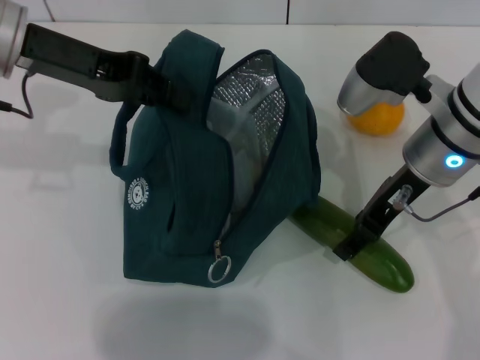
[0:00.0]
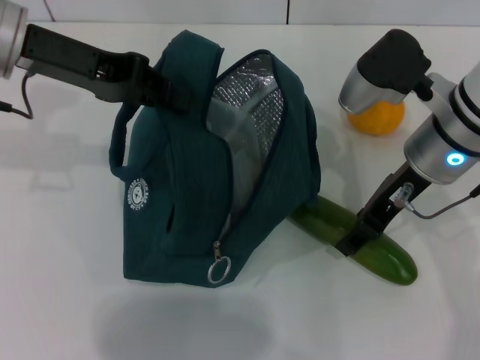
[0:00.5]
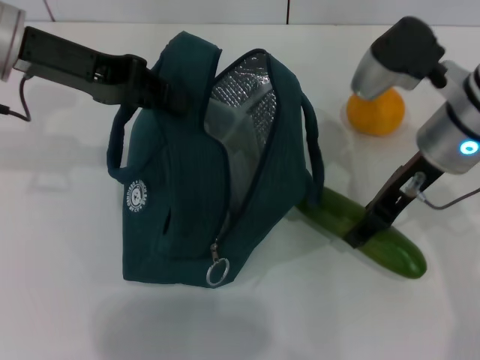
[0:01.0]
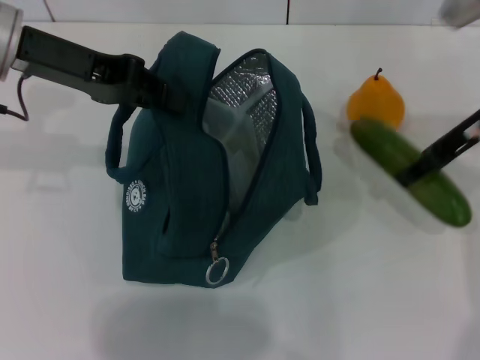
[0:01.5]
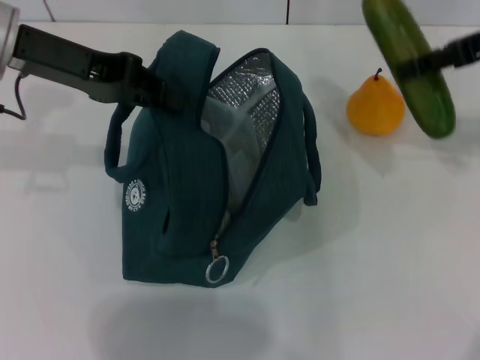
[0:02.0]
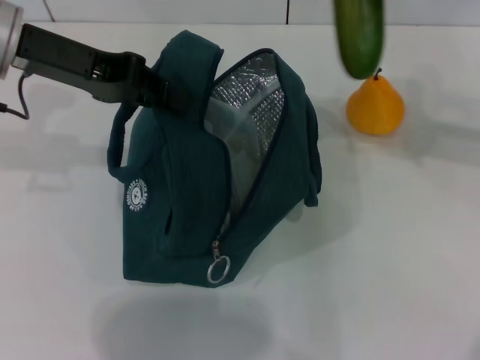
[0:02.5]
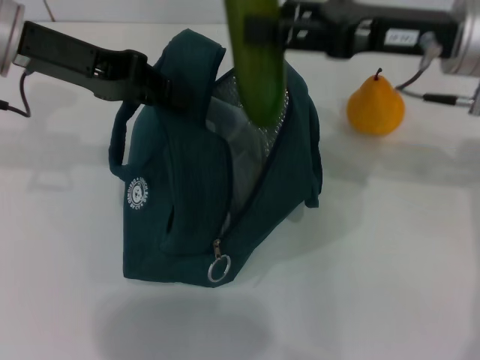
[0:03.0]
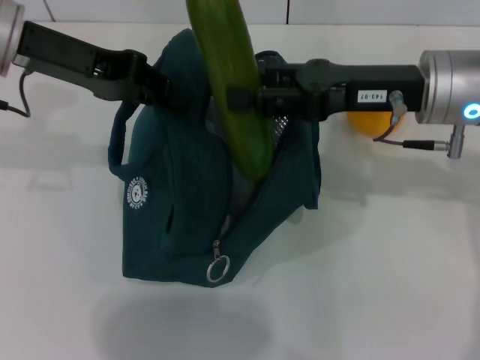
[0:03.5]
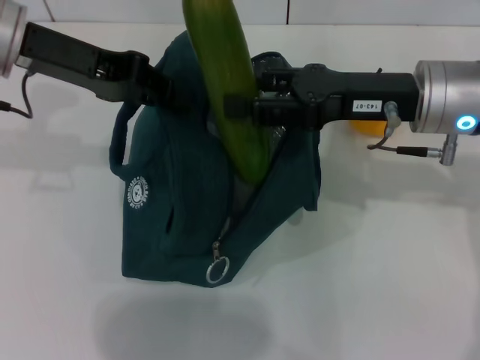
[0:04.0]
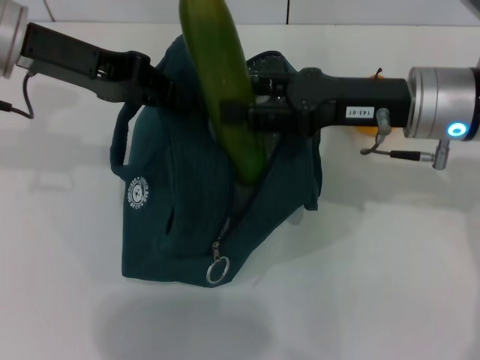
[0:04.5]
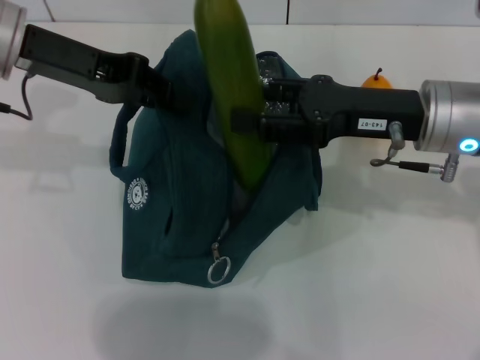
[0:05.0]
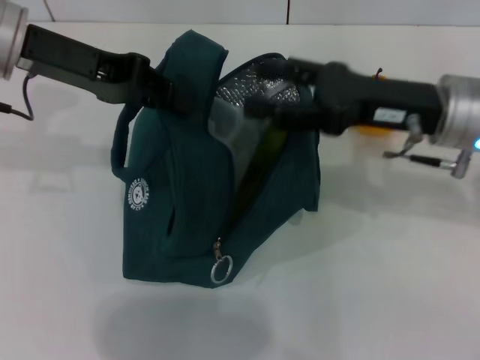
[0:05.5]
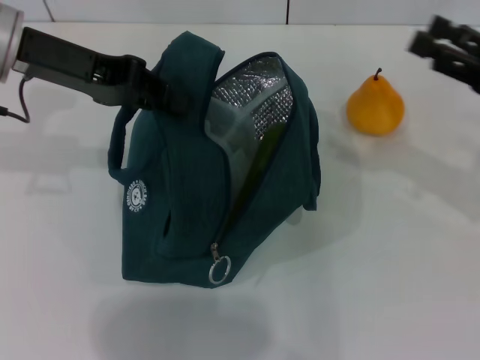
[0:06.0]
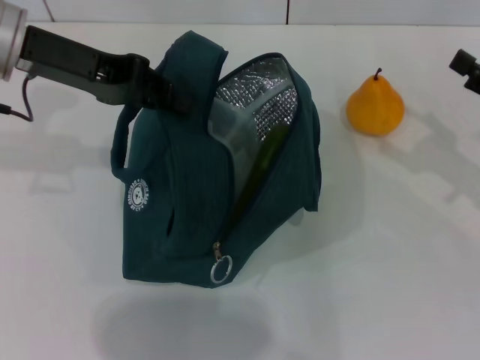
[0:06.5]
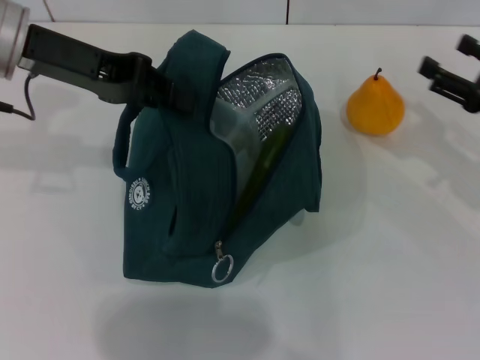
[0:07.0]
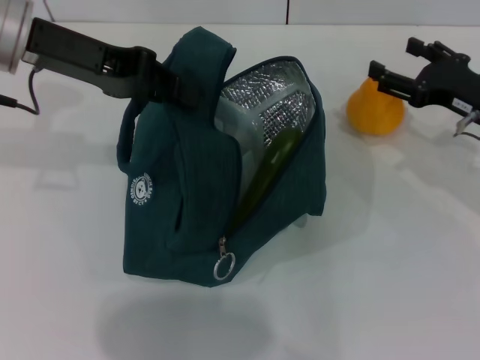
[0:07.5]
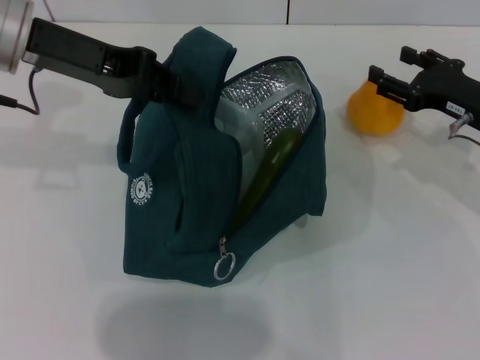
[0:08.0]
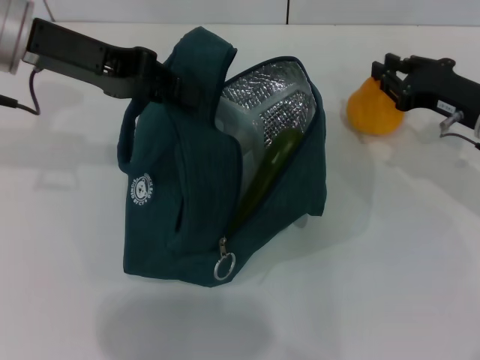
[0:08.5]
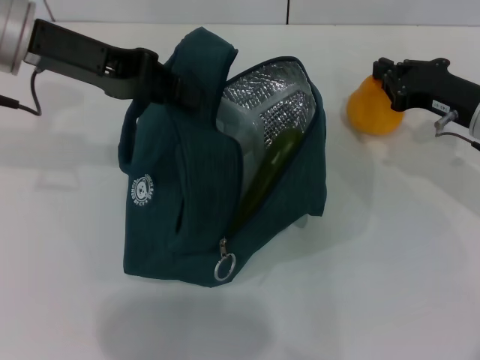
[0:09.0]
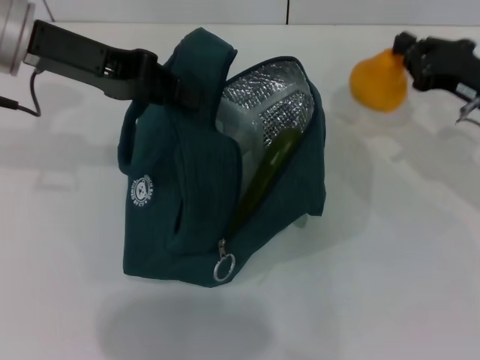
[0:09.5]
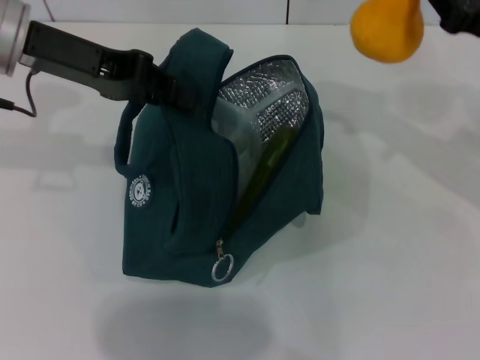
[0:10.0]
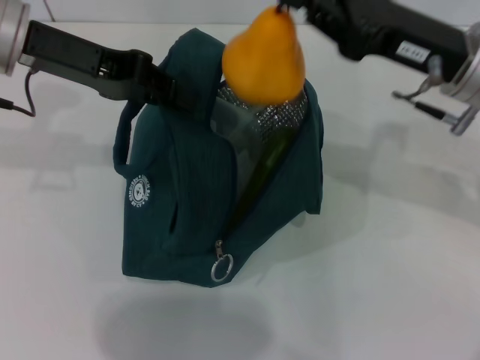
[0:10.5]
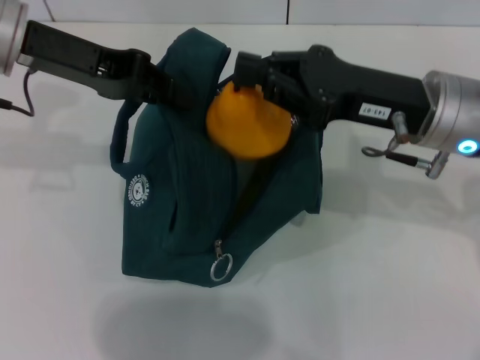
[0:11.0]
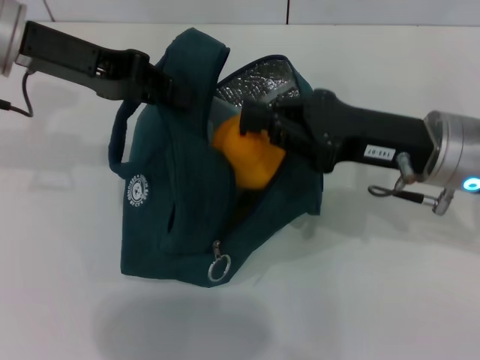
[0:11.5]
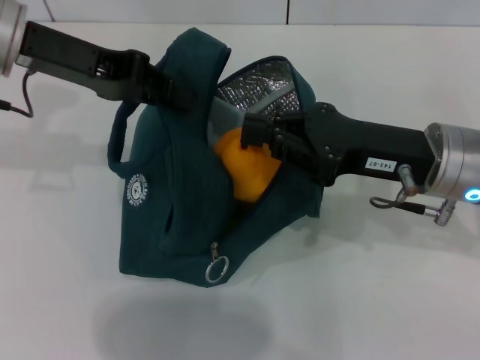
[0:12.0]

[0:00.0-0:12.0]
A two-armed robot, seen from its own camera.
Step, 0:00.5 to 0:05.0: Put the cucumber into the lunch bag with your right hand.
Step, 0:06.0 to 0:09.0: Grab the pear with your right hand.
0:00.0 to 0:02.0: The right gripper goes approximately 15 cm to the right and upward.
0:02.0 to 0:04.0: The right gripper moves to the left and downward, about 15 cm.
0:04.0 to 0:06.0: The right gripper moves to the right, roughly 15 cm.
0:06.0 to 0:08.0: The right gripper goes about 10 cm downward and forward.
0:08.0 to 0:10.0: The right gripper goes roughly 5 cm upward, and closes its fingers.
0:10.0 to 0:12.0: The right gripper heads to the left and backward, covering roughly 10 cm.

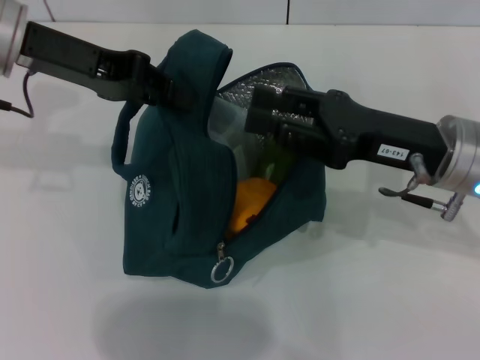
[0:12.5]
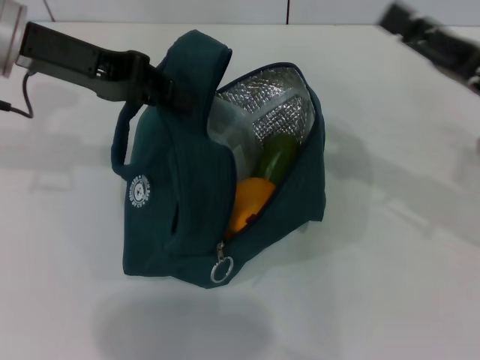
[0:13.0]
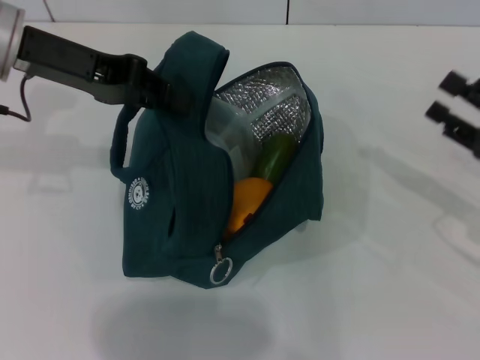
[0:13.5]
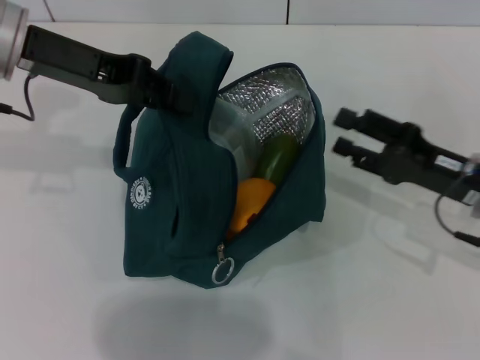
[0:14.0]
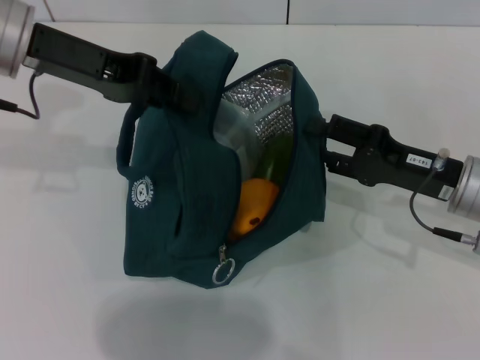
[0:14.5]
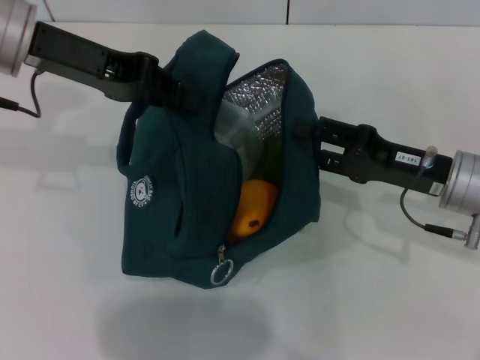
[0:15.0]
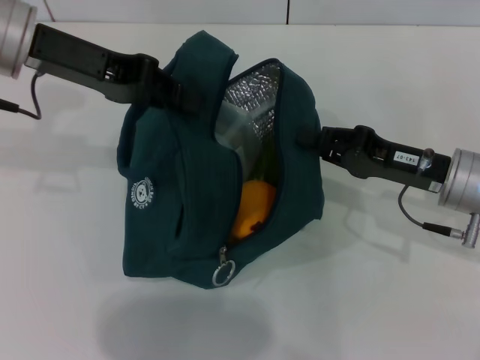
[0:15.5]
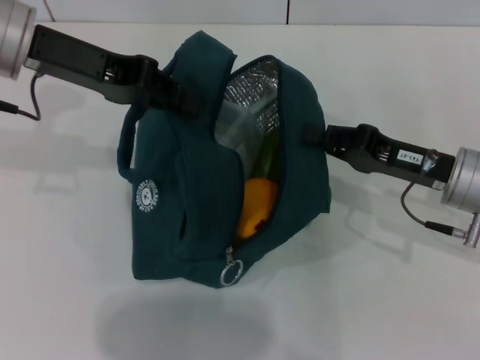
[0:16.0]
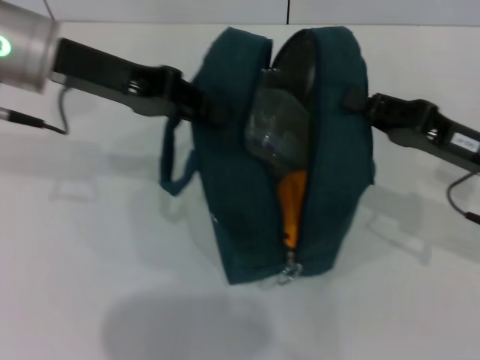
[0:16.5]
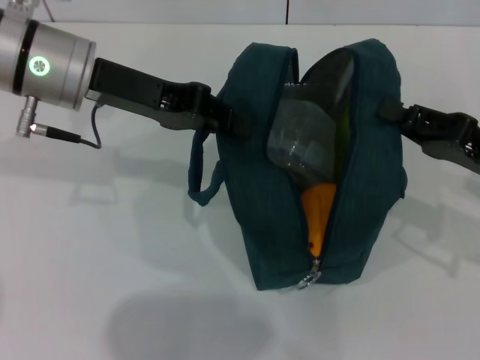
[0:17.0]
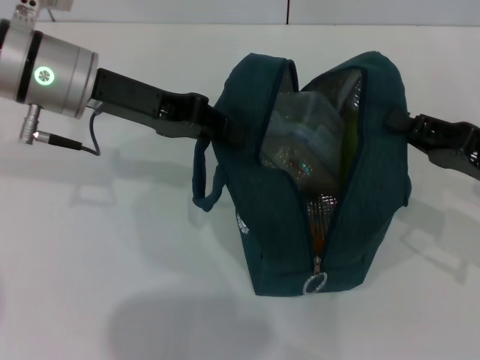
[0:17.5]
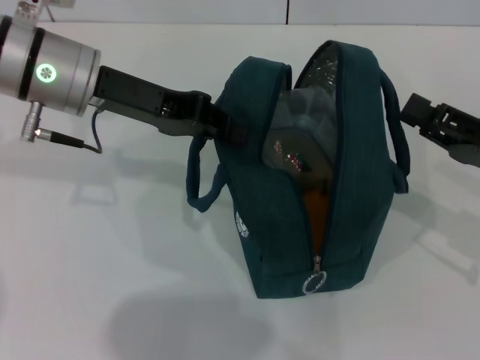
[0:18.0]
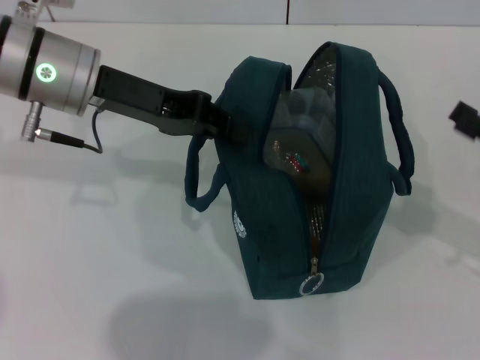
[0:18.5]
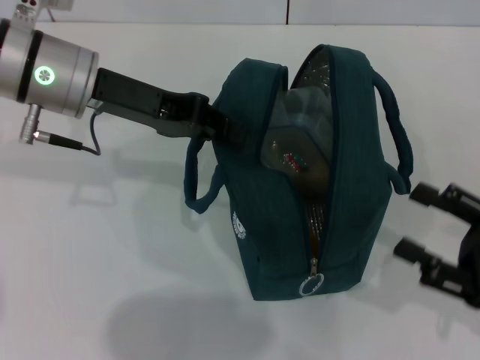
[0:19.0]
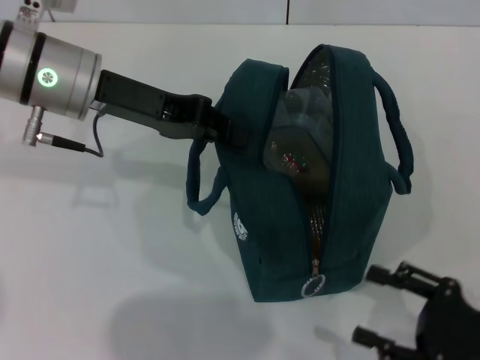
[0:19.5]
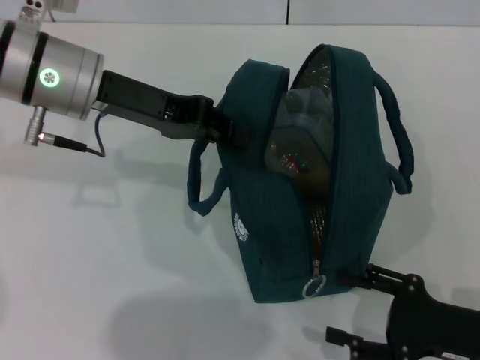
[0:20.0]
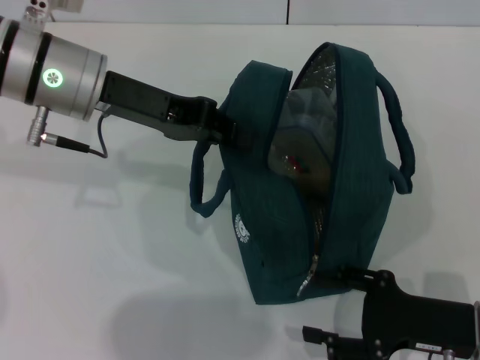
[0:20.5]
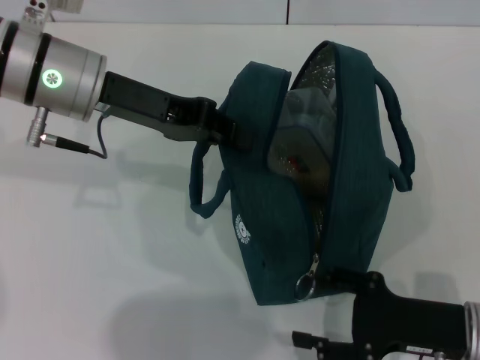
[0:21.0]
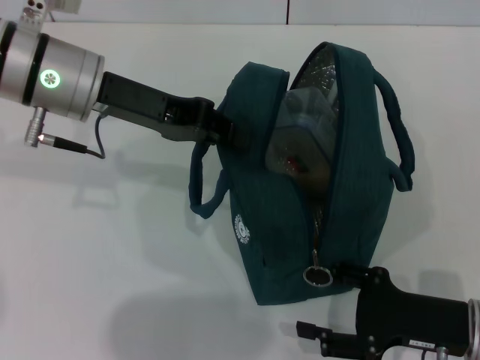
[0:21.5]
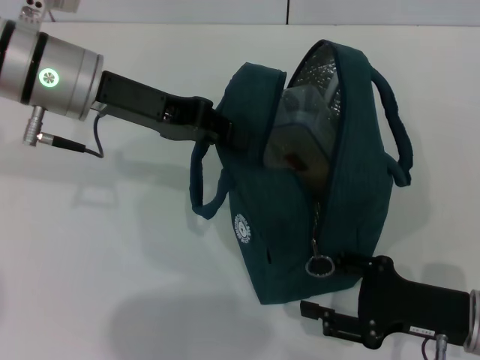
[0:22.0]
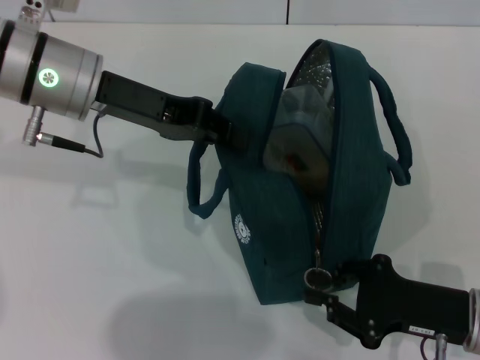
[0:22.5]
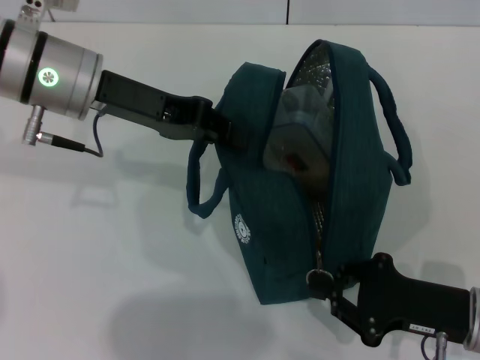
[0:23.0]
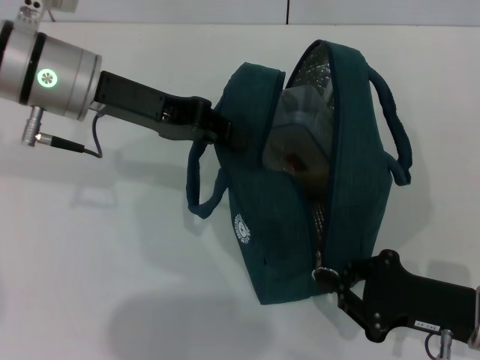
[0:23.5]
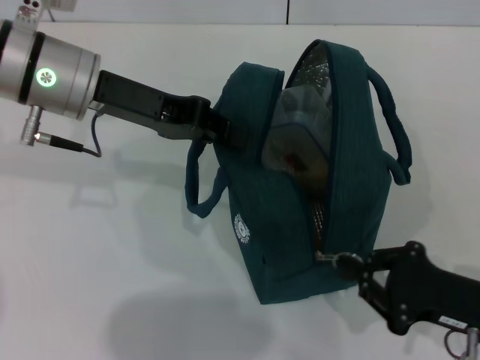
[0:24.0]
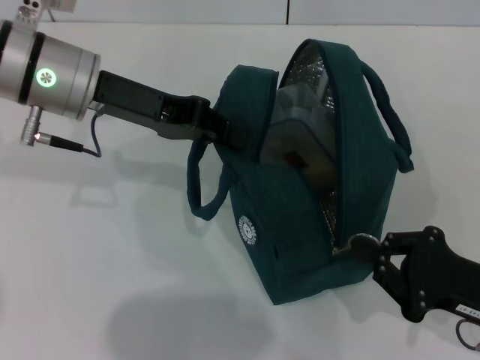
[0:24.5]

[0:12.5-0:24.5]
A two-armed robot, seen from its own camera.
Step, 0:12.5 to 0:17.5: Hold the lunch bag with your right hand.
0:12.5 to 0:14.5: The right gripper is displaced downward by roughly 5 cm, goes to the right and returns, some 15 cm each way, and opens its fingers.
0:14.5 to 0:16.5: The right gripper closes.
0:16.5 to 0:18.5: The right gripper is displaced to the right by approximately 10 cm, and opens.
0:18.5 to 0:20.5: The right gripper is displaced to the left and downward by some 10 cm.
0:20.5 to 0:22.5: Both grippers stay about where they are.
0:22.5 to 0:24.5: The right gripper closes its fingers.

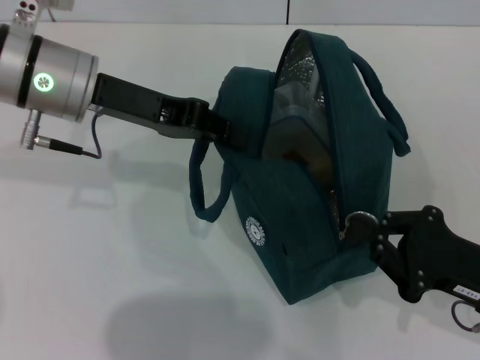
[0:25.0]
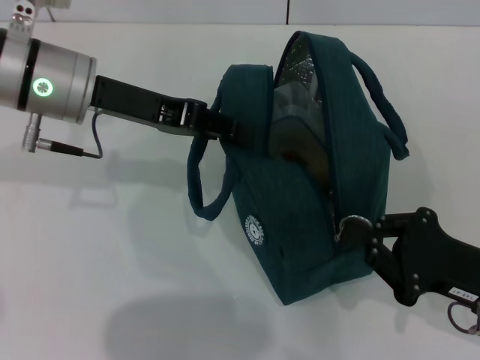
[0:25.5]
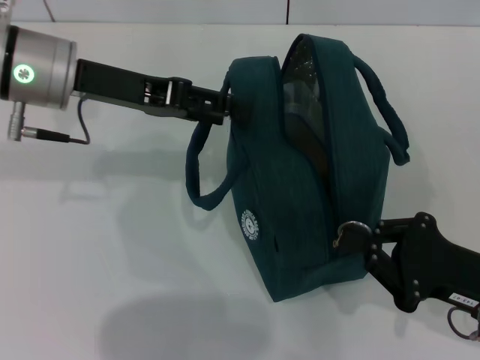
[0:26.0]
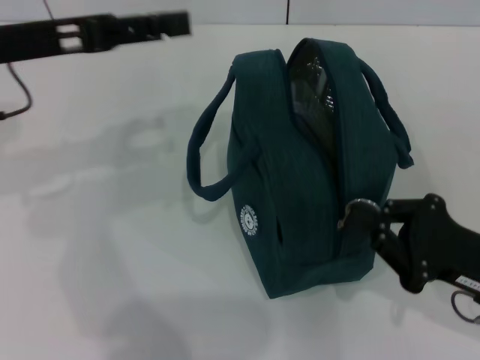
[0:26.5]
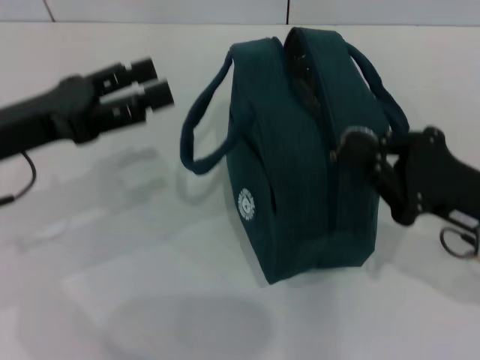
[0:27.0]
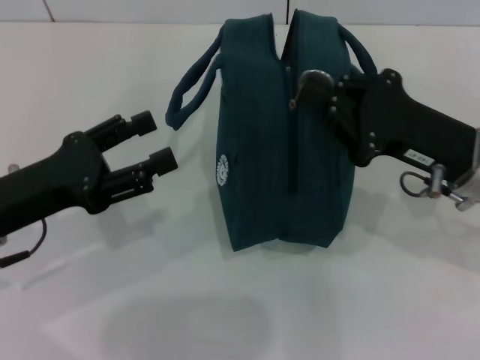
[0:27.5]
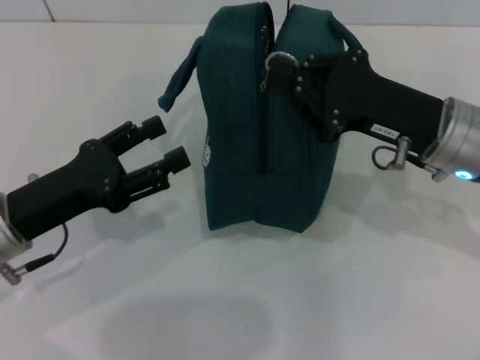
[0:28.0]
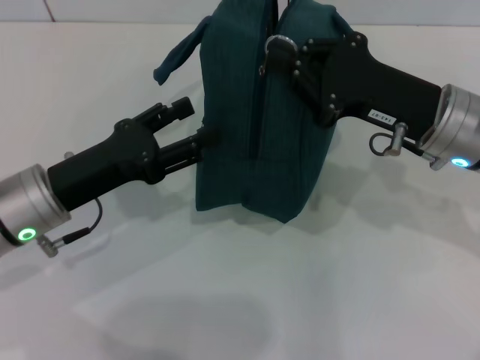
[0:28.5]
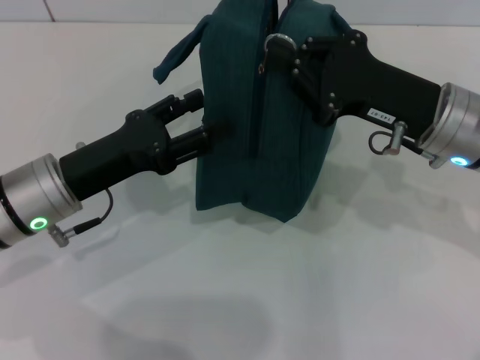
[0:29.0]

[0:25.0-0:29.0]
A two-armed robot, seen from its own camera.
0:25.0 to 0:27.0: The right gripper changes place by some 5 cm. The left gripper heads backward and to the left, covering about 10 cm, and opens.
0:27.0 to 0:29.0: The left gripper heads downward, covering about 5 cm, while the right gripper moves forward and to the left, approximately 10 cm.
